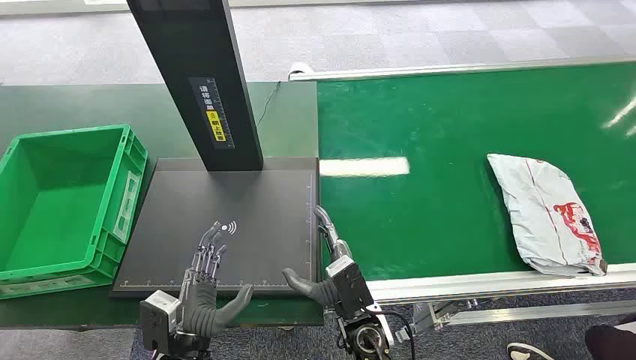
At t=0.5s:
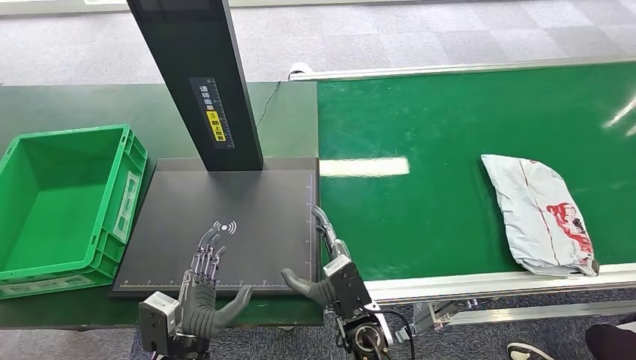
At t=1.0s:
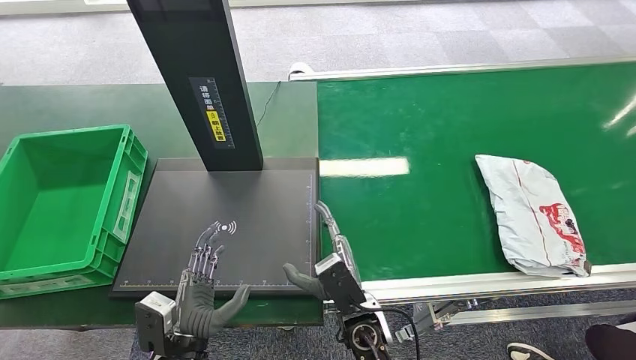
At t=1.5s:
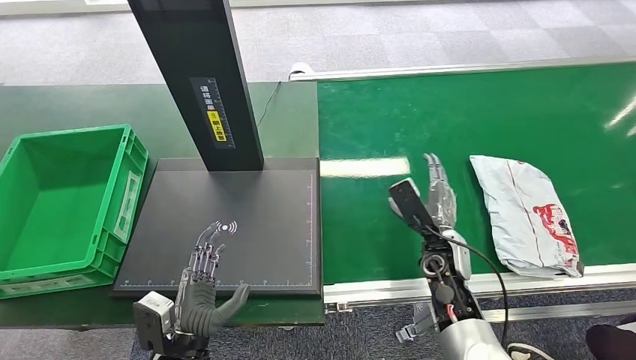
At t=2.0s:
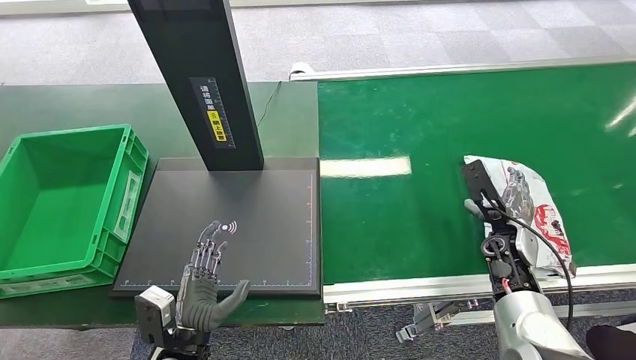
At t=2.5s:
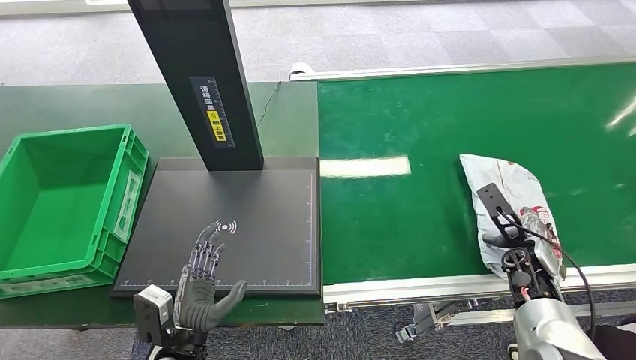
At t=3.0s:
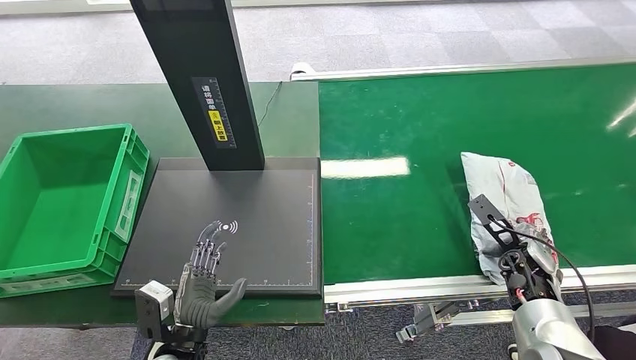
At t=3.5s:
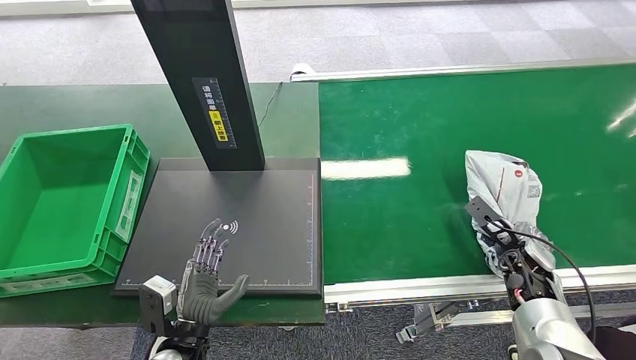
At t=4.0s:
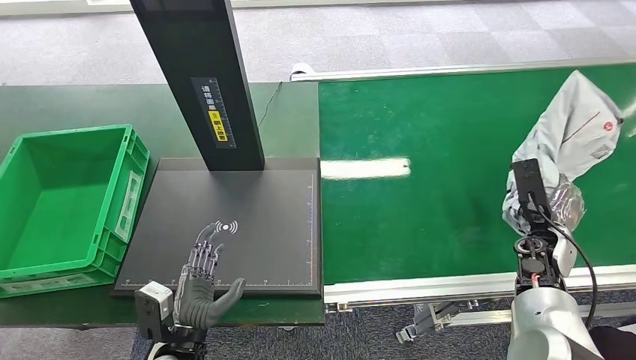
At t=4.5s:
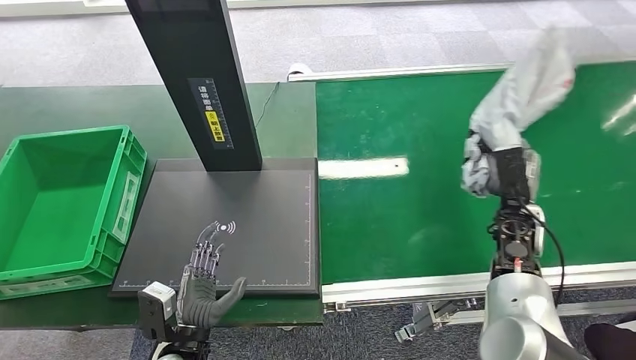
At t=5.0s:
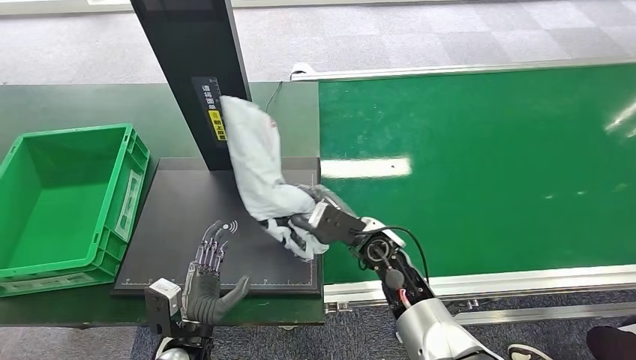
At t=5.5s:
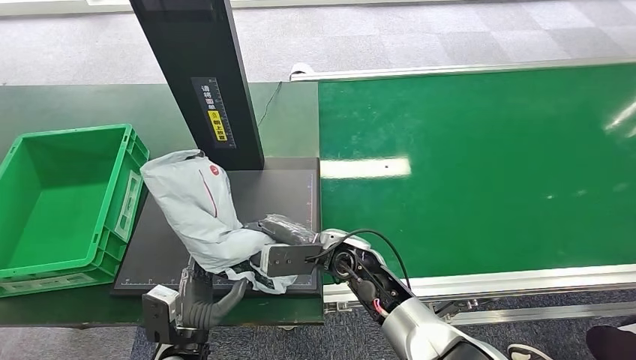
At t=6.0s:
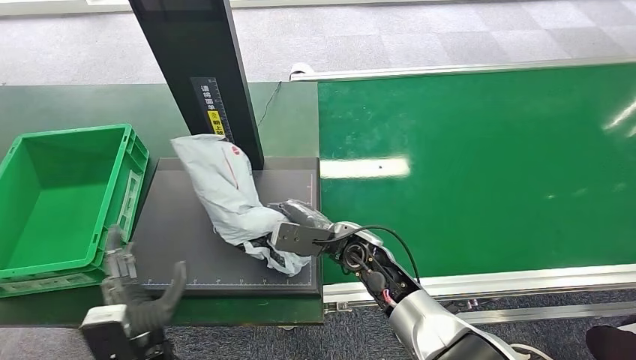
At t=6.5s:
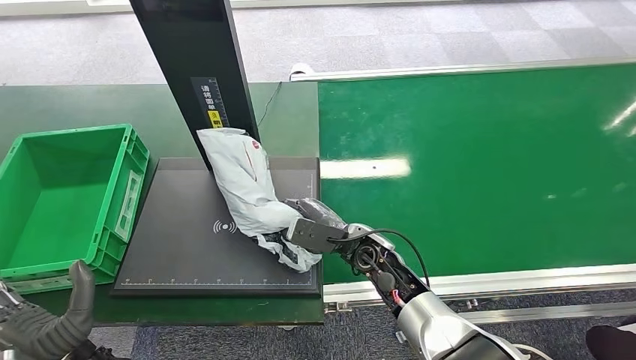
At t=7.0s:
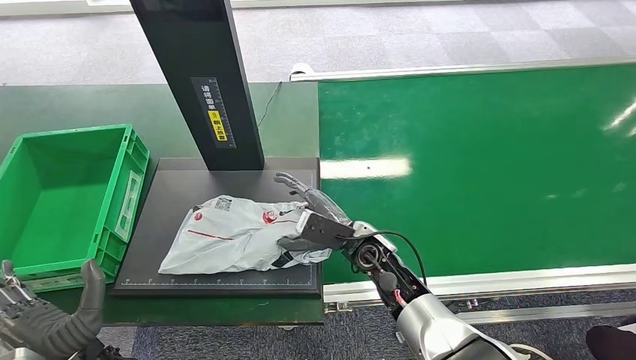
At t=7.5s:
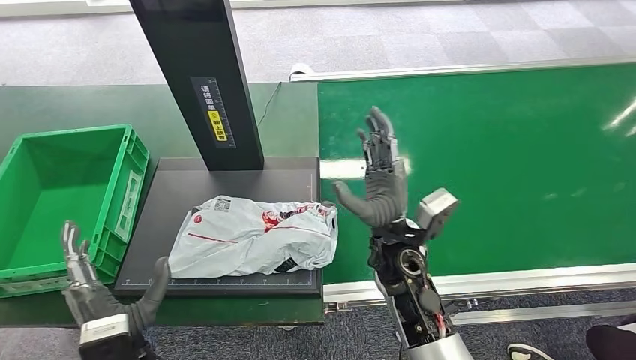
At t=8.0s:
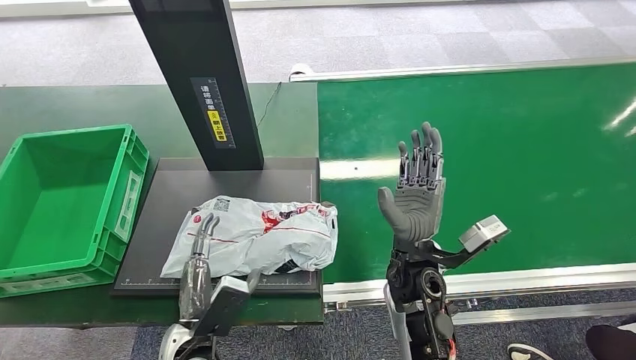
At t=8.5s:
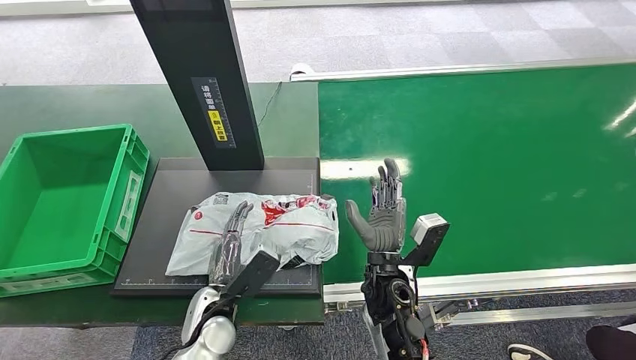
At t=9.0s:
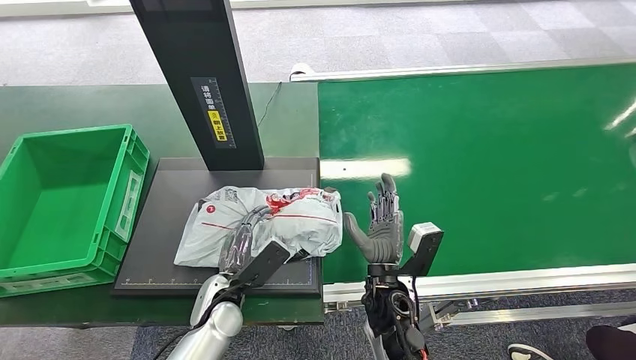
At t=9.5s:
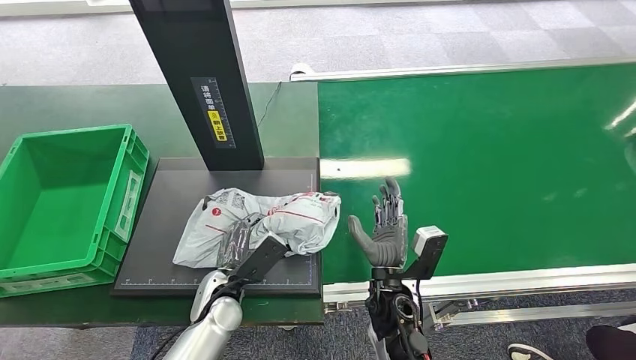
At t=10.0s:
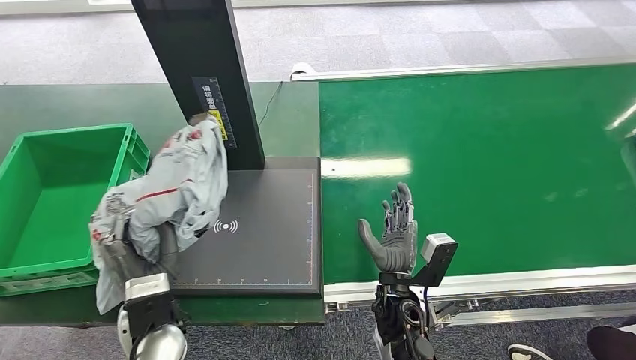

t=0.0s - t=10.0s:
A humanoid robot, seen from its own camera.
Step, t=0.0s - t=4.0s: Pick up the package from the conveyor belt.
Step, t=5.0s - t=7.5s: Place the package onto the inbound machine.
t=6.0s - t=8.0s: The left hand shifts by about 5 cm. The right hand moves approximately 5 cm.

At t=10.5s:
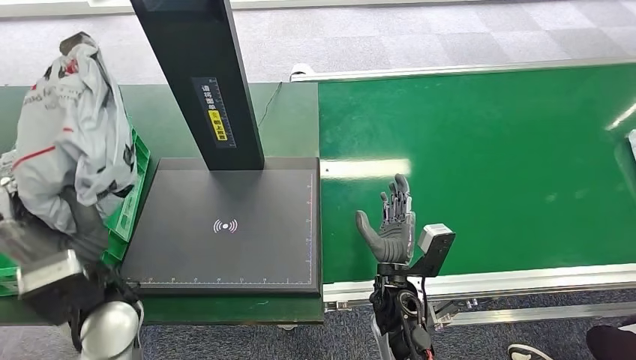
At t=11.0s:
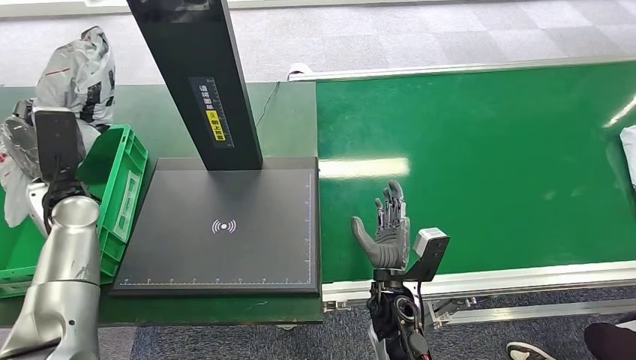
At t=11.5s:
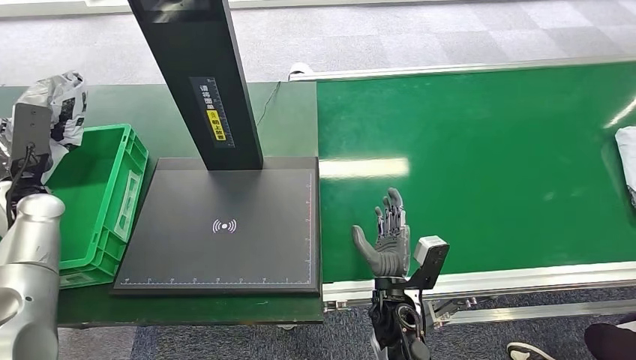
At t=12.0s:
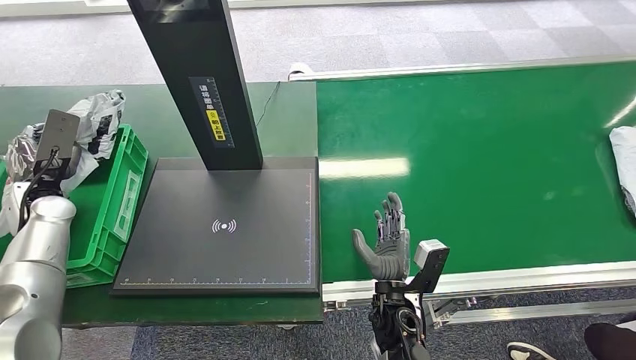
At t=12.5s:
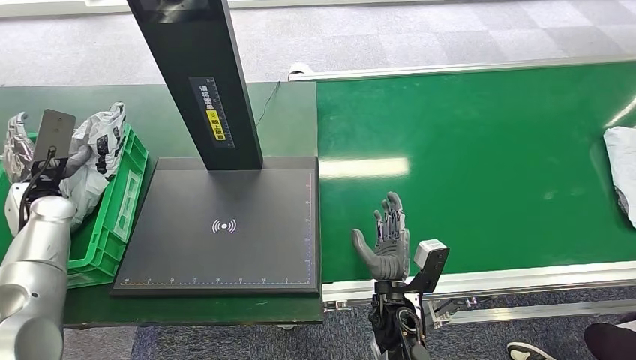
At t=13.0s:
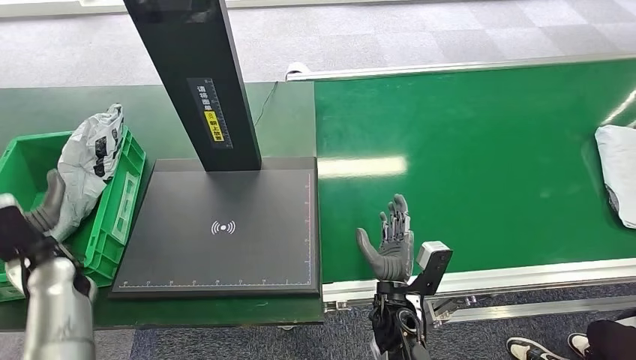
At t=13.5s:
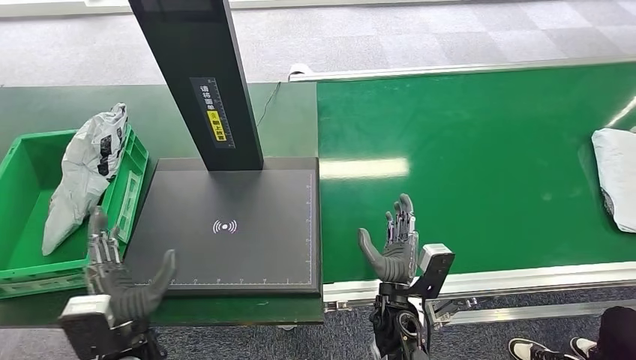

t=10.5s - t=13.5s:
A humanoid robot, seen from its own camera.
Step, t=10.5s - t=13.5s: Place the package into the parcel locker.
t=12.0s - t=13.5s: The left hand shifts approximately 30 cm backward, to the right and downward.
